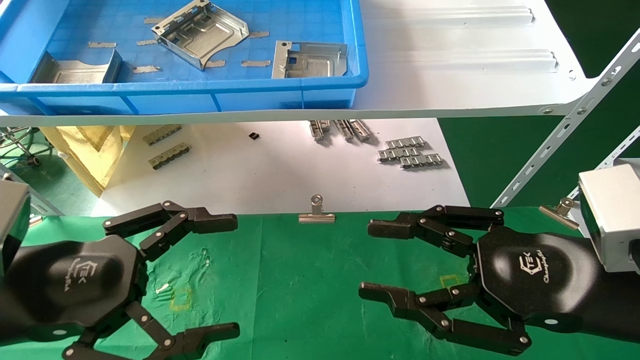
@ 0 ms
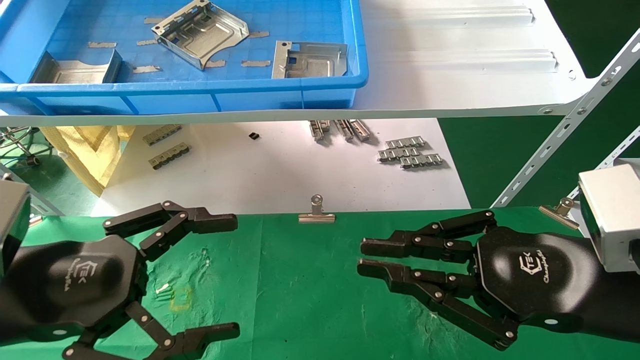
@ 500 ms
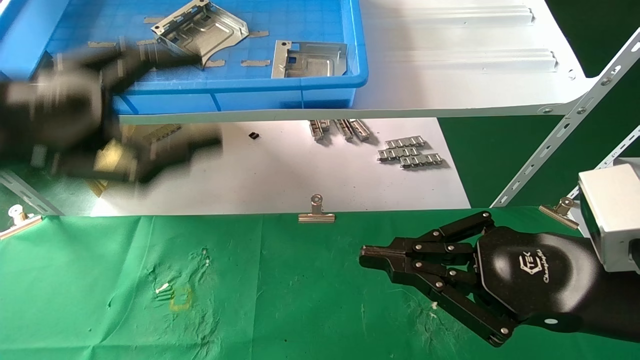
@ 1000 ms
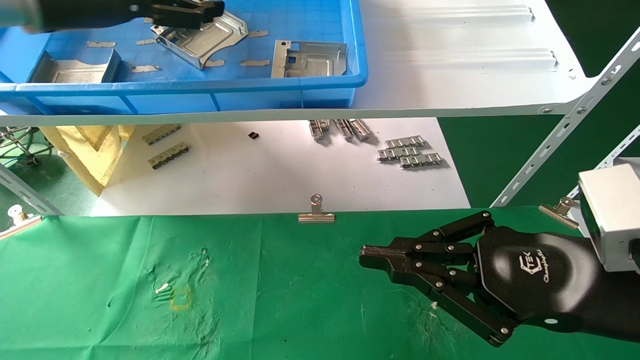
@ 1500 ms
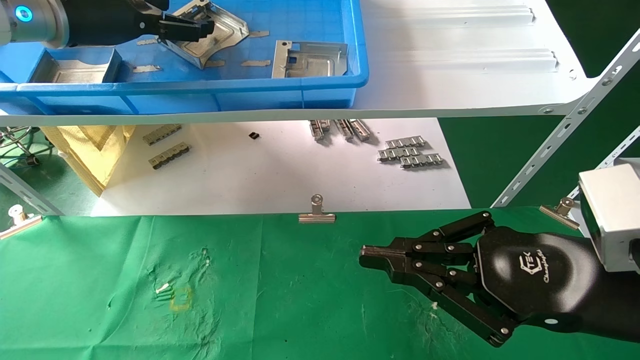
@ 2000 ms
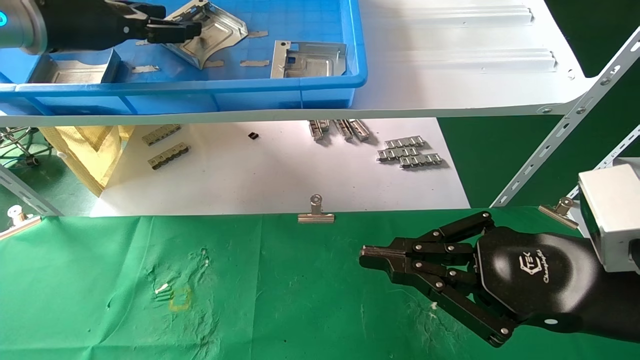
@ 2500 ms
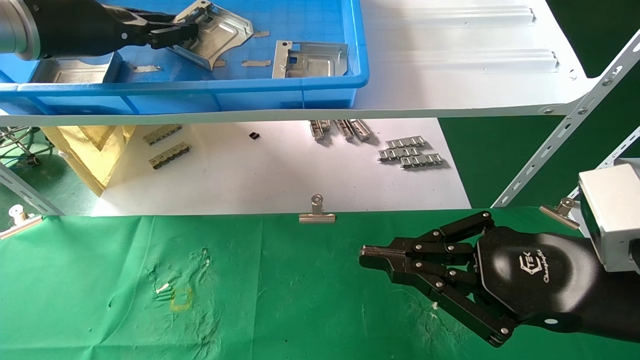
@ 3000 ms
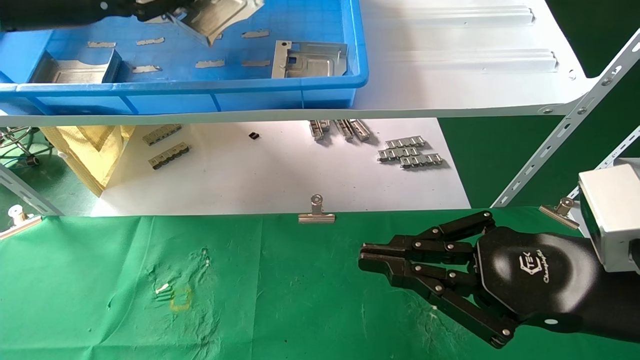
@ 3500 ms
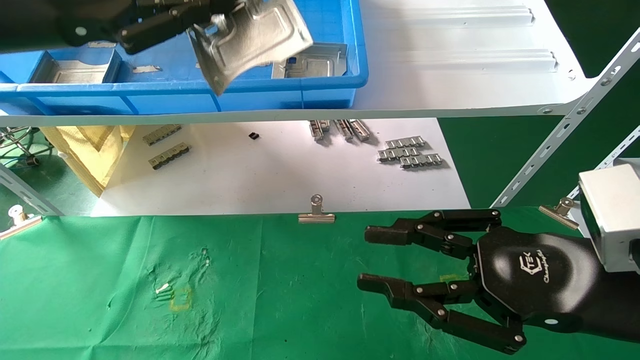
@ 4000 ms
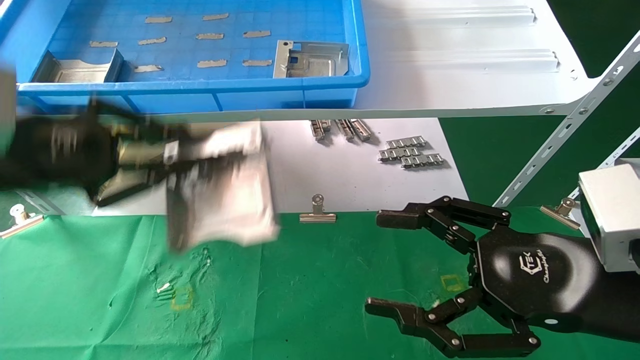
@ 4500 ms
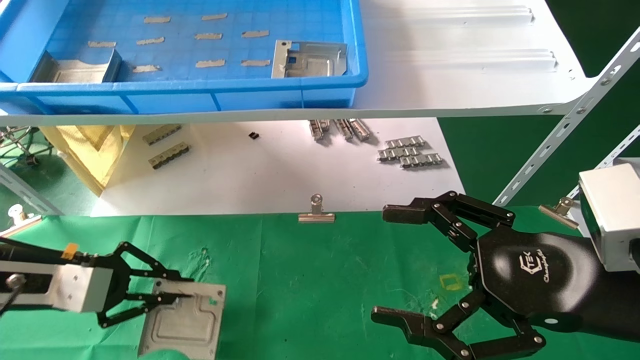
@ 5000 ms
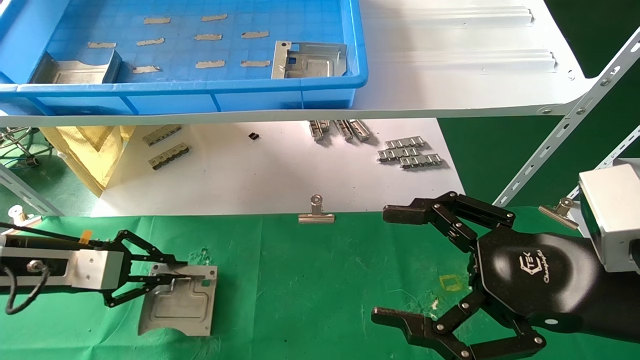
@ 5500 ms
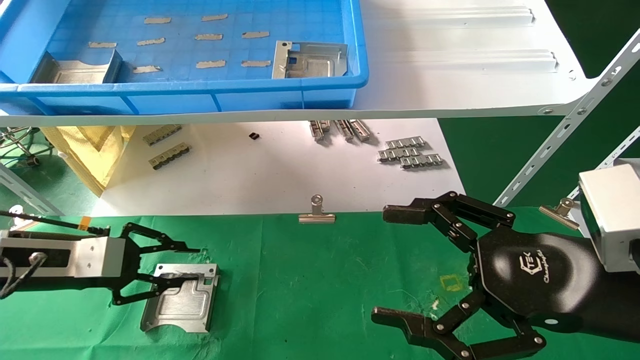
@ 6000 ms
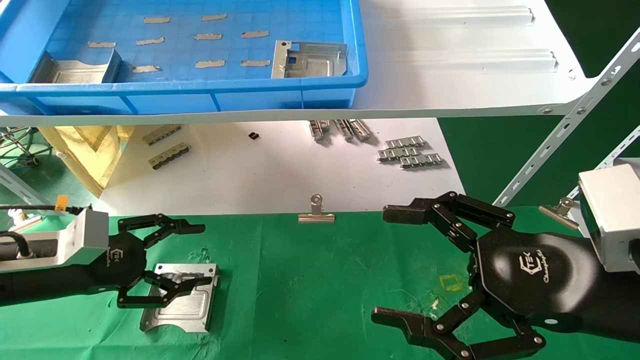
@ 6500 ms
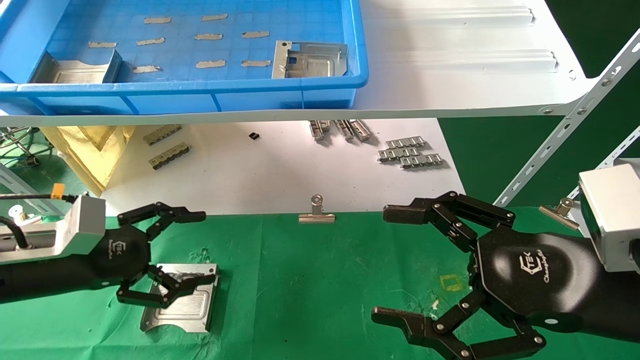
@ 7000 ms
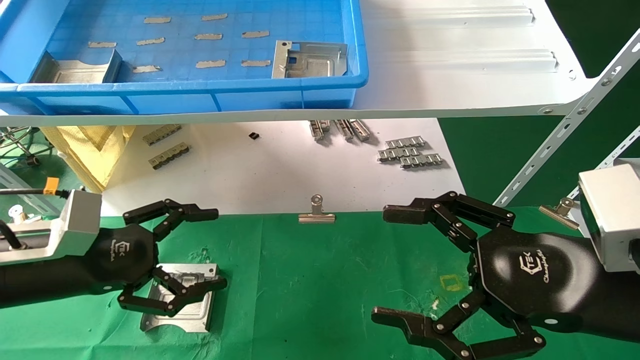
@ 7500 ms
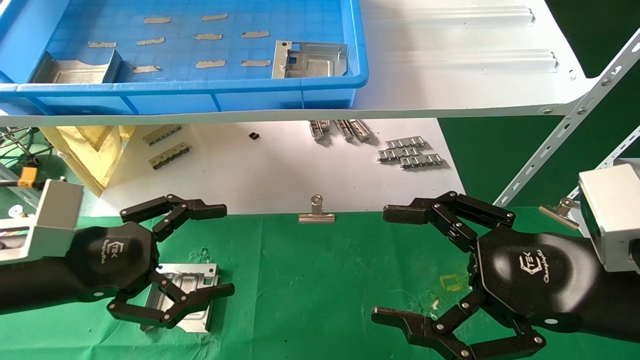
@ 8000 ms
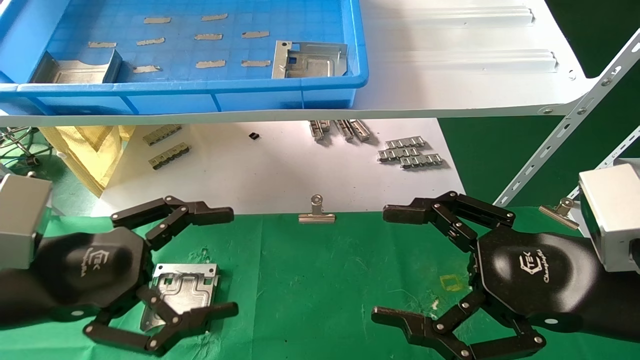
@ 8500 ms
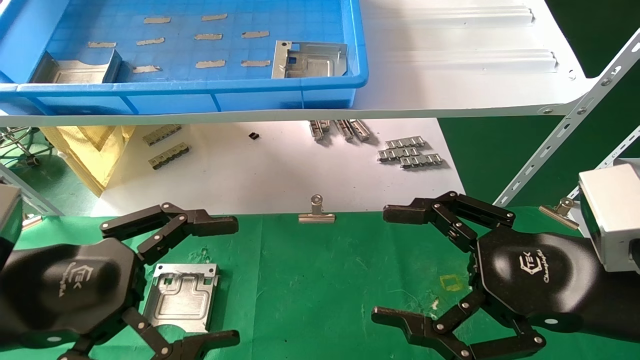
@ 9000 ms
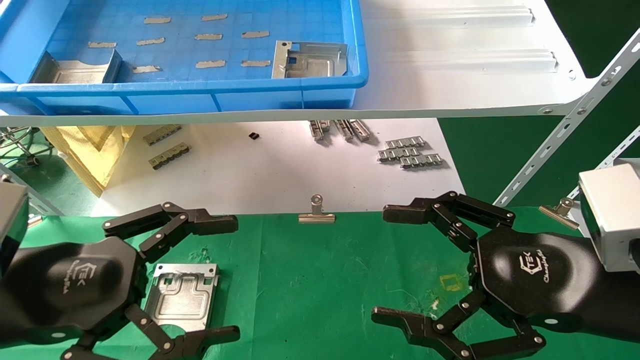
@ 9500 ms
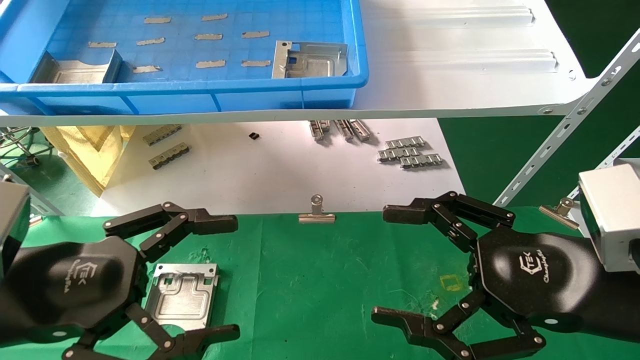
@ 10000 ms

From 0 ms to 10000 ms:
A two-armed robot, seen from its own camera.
Task of the whole recording: use the mechanical arm to pick up the parts and place them on the table.
Step, from 1500 ms to 3000 ms: Pick up the hard drive bracket from the feeding area.
Step, from 3500 ms to 6000 ms: Place the hard drive bracket into the box.
From 0 ms to 2000 ms: The right gripper closes, while the left gripper travels upward and forward by roughly 30 cm.
From 2000 ms to 4000 ms: The left gripper goes about 10 cm backward, and closes its fingers.
From 4000 ms to 6000 ms: The left gripper shifts some 25 cm downward. The right gripper opens its fingers.
From 6000 ms to 8000 ms: The left gripper goes roughly 10 cm backward and to the right, and opens.
From 8000 ms to 10000 ms: The left gripper heads backward, covering about 5 cm.

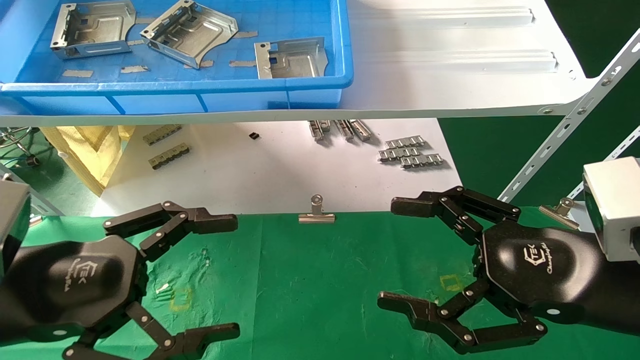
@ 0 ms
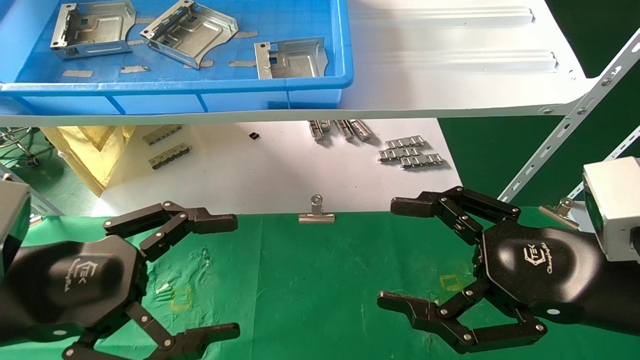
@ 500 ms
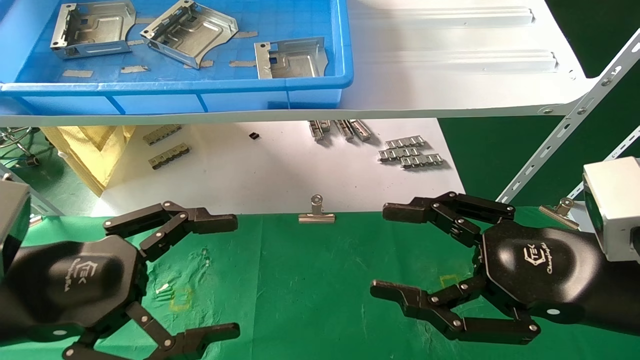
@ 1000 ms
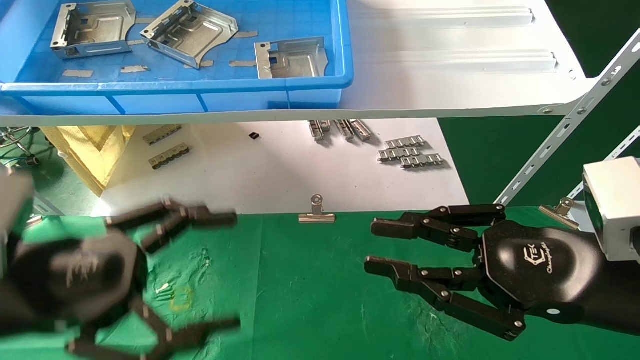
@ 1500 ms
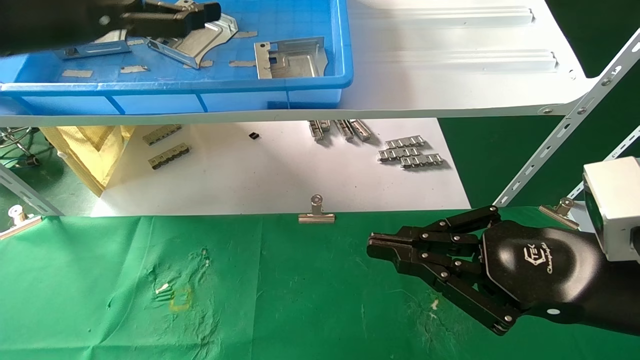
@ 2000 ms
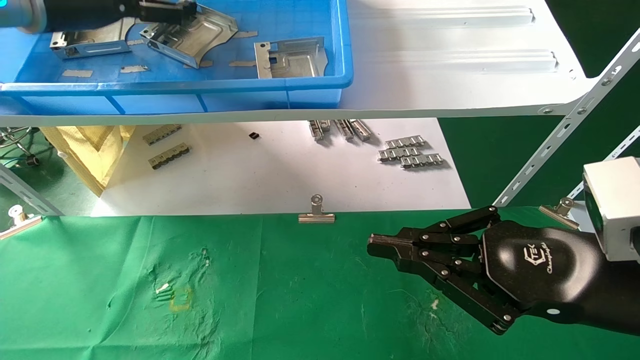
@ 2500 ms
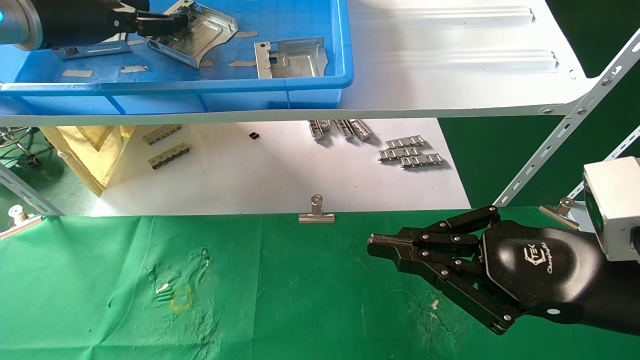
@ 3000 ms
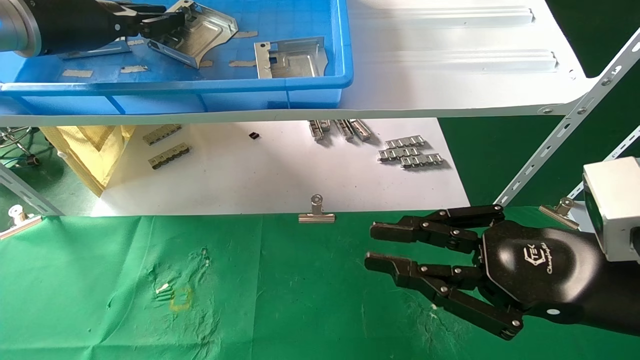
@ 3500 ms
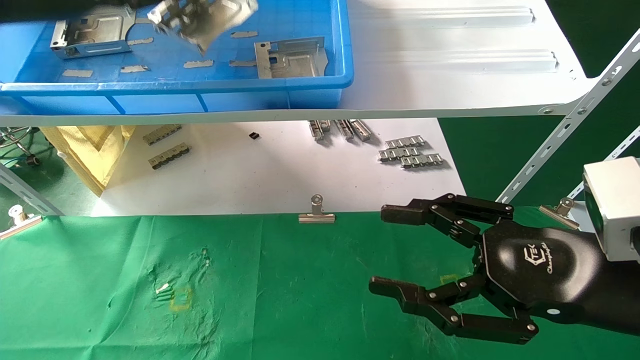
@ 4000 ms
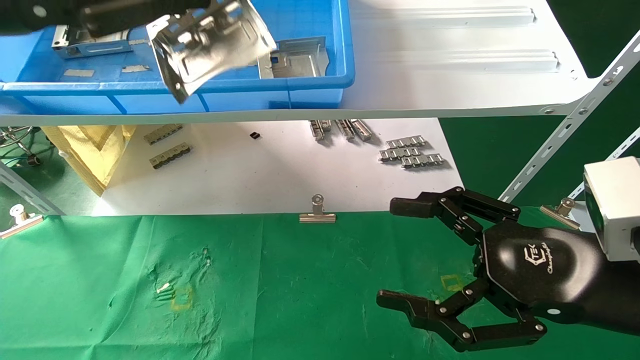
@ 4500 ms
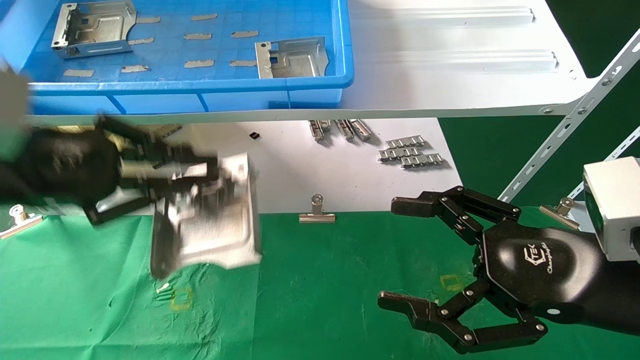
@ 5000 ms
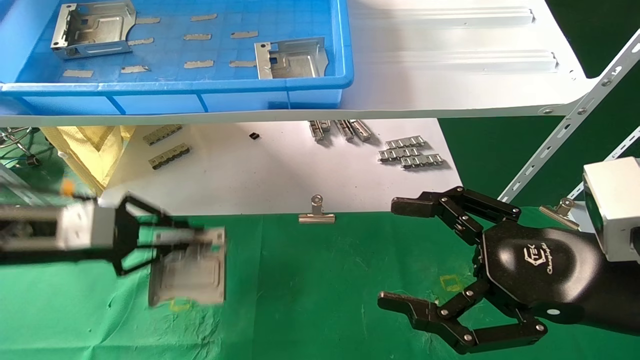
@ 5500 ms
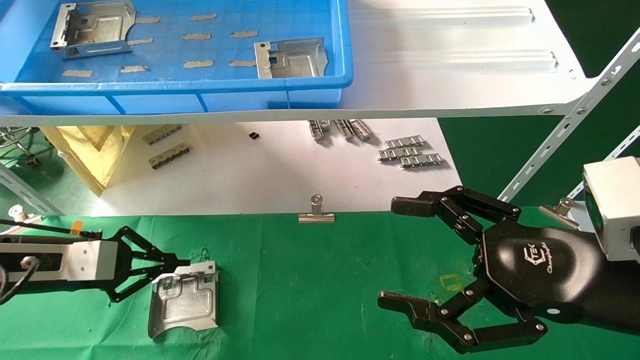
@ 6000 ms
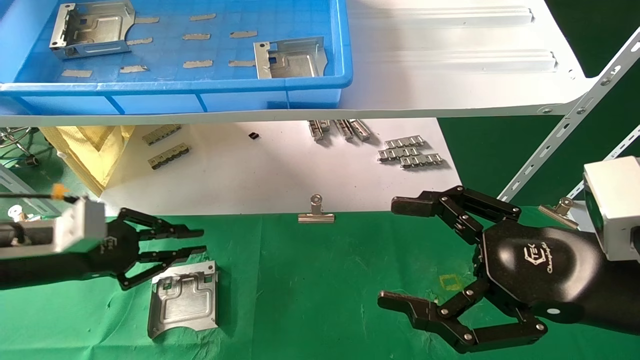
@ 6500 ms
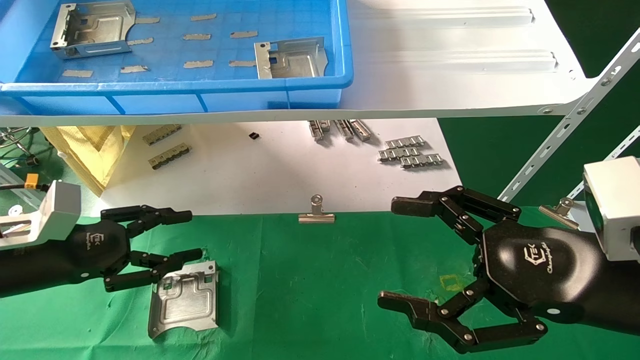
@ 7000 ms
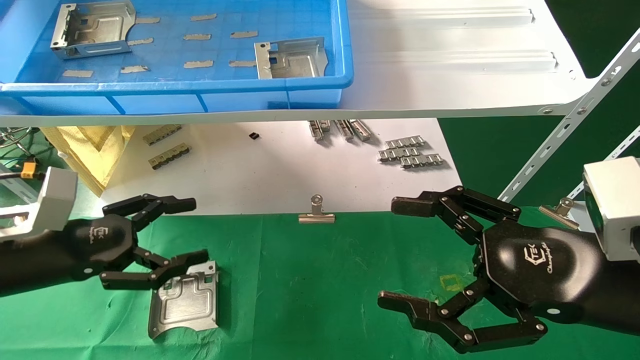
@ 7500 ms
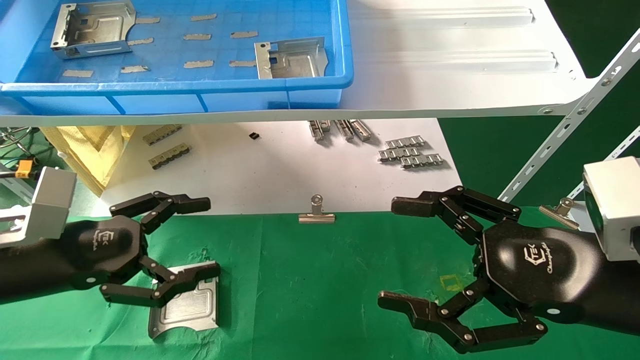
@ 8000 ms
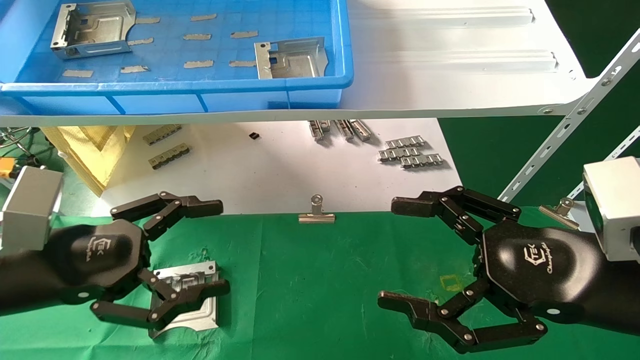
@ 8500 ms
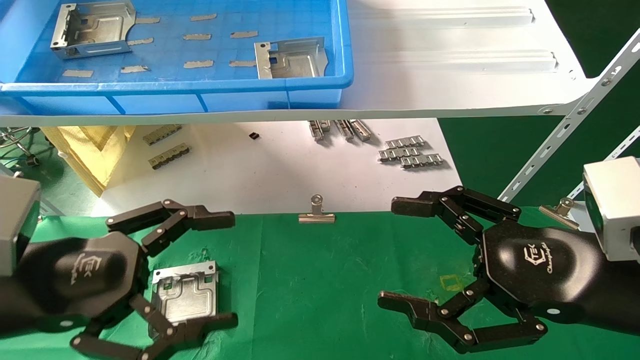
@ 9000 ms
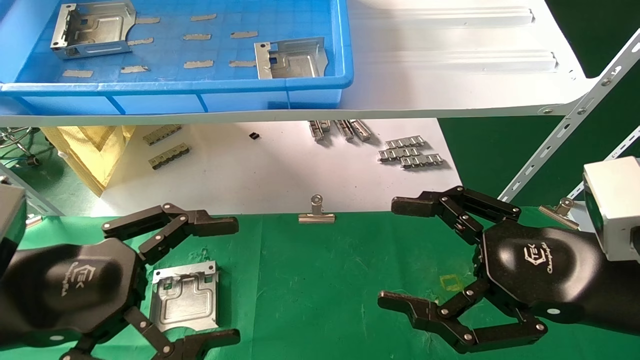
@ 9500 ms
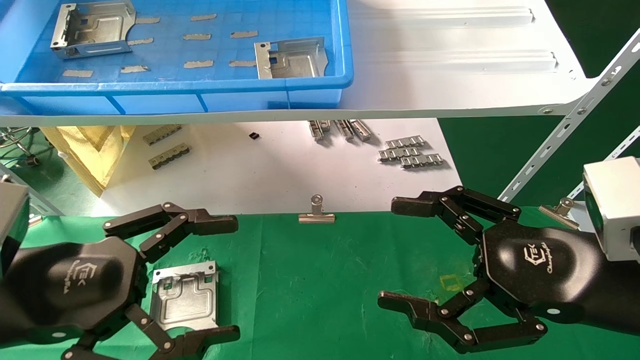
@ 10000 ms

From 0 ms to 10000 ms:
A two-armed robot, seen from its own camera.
Task of the whole recording: use the mechanical arm to pick up the parts and place them on the table.
Step, from 2000 ms to 3500 ms: Pick up the hard drive bracket from the feeding area.
Step, from 4000 ms to 6000 ms: Place the hard drive bracket into the box.
From 0 ms to 2000 ms: The right gripper closes up; the left gripper travels upward and forward by roughly 25 cm.
From 2000 ms to 4000 ms: The left gripper closes. Meanwhile the right gripper opens its fingers.
From 4000 ms to 6000 ms: The right gripper opens its fingers. The left gripper moves downward, about 30 cm.
From 6000 ms to 8000 ms: The left gripper moves backward and to the right, approximately 10 cm, and opens.
From 8000 ms to 10000 ms: The left gripper shifts about 10 cm backward.
